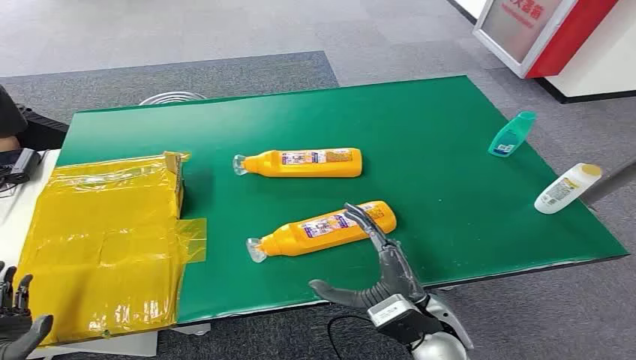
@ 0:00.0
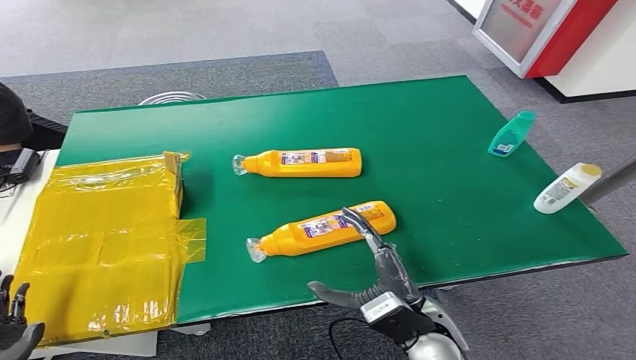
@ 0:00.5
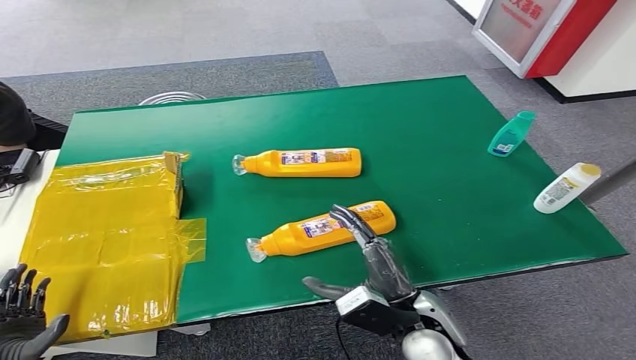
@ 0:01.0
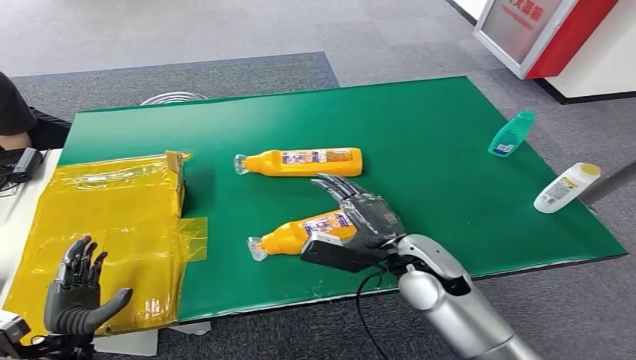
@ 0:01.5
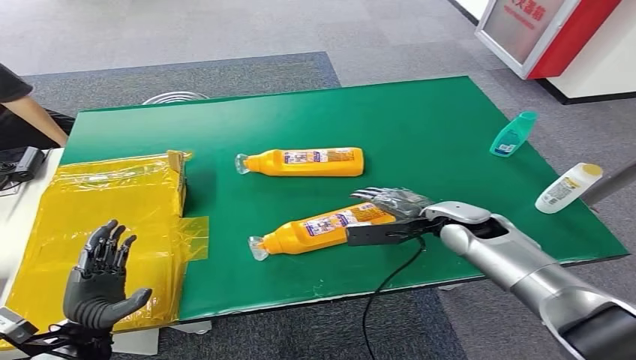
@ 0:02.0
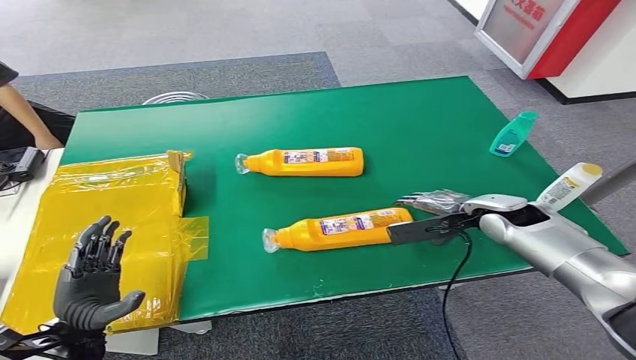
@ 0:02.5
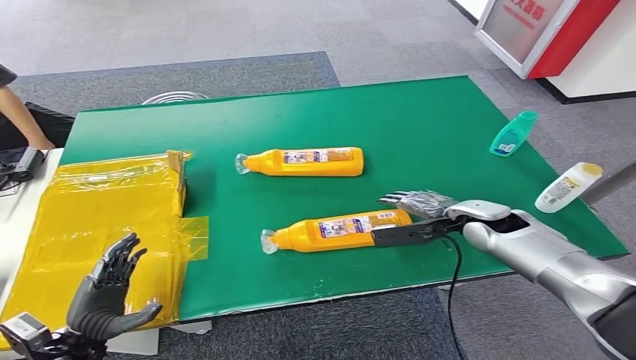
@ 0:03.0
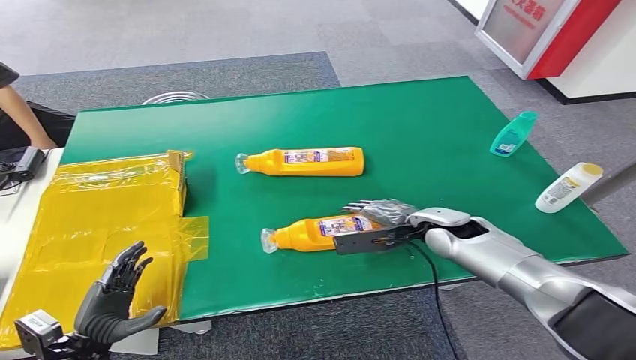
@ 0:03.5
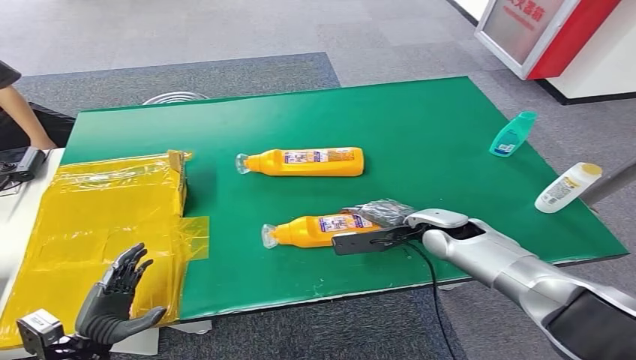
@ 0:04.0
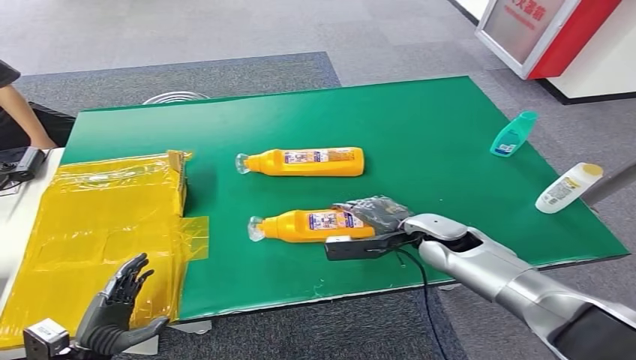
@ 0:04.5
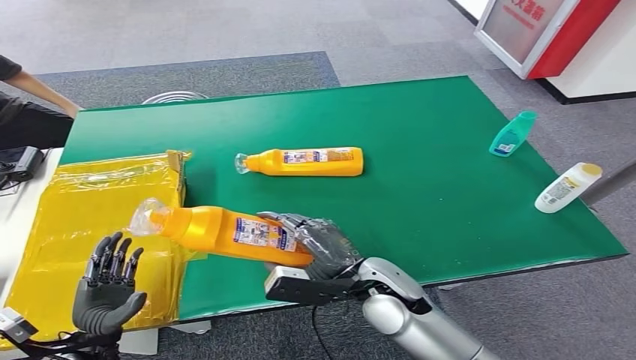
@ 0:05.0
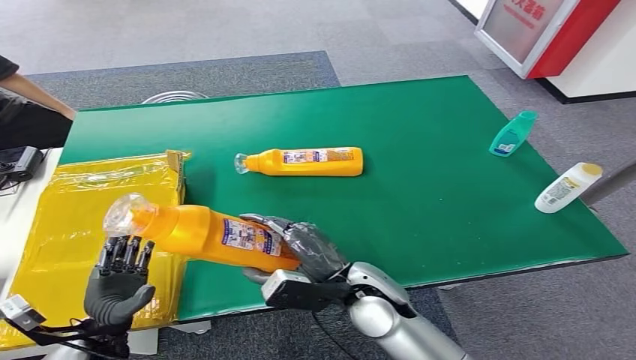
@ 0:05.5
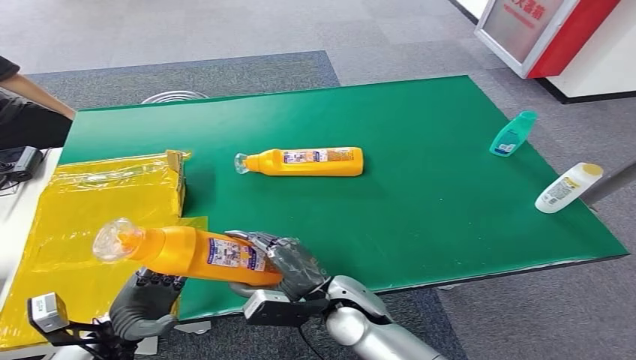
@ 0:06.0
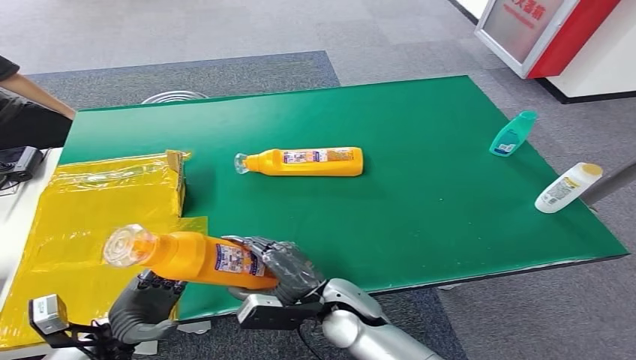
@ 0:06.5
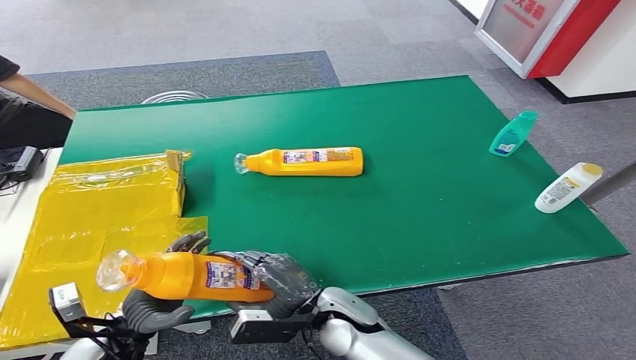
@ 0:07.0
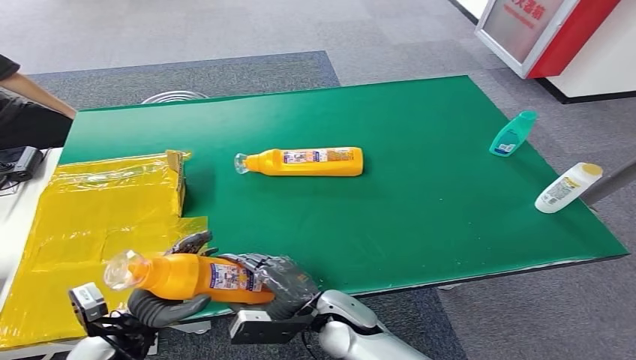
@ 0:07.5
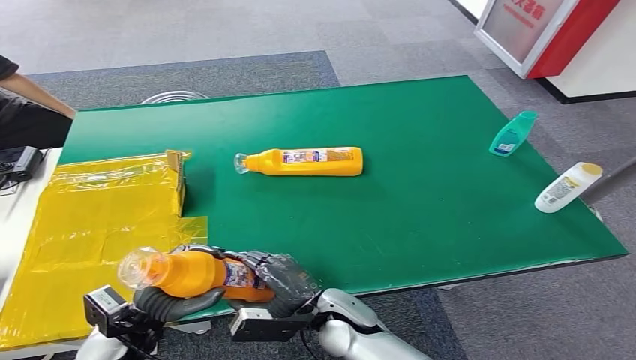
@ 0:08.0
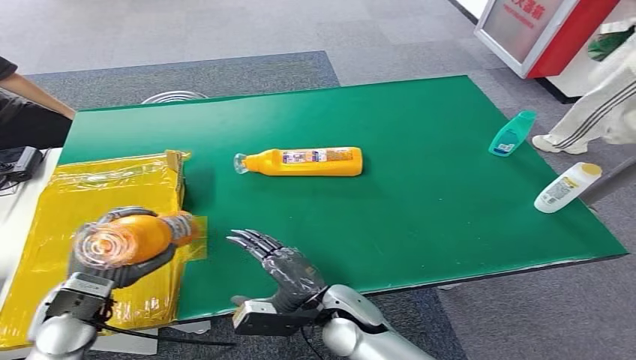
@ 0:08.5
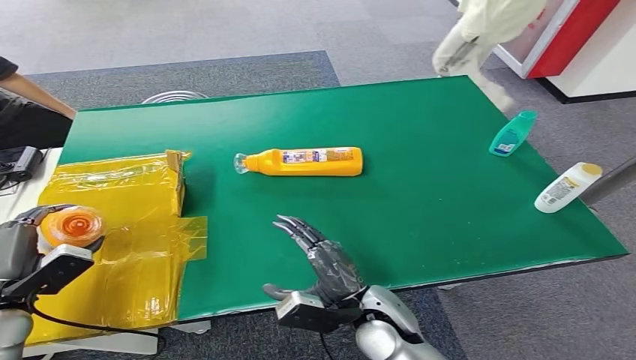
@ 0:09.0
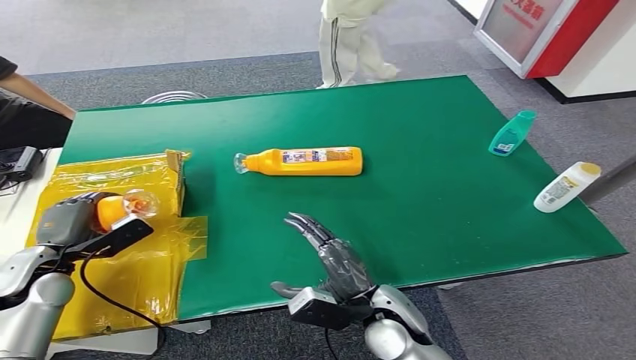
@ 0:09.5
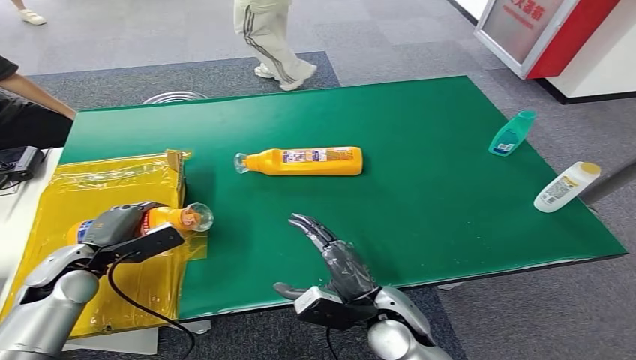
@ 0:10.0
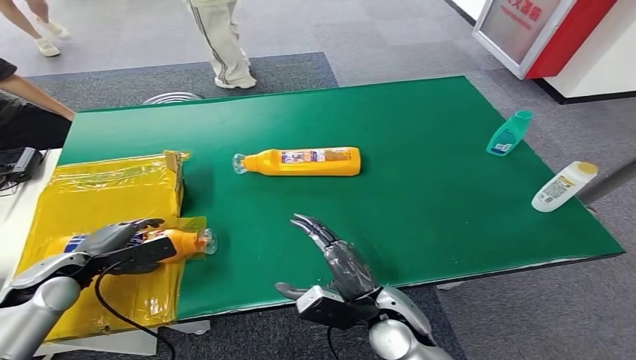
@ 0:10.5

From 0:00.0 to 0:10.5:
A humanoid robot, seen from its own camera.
Step, from 0:00.0 to 0:05.0: Pick up the bottle from the table.
Step, from 0:05.5 to 0:10.5: Turn the bottle to the front side.
From 0:02.0 to 0:04.0: The right hand travels to the right and back again, approximately 5 cm each way.
From 0:06.5 to 0:08.5: The left hand goes some 10 cm upward.

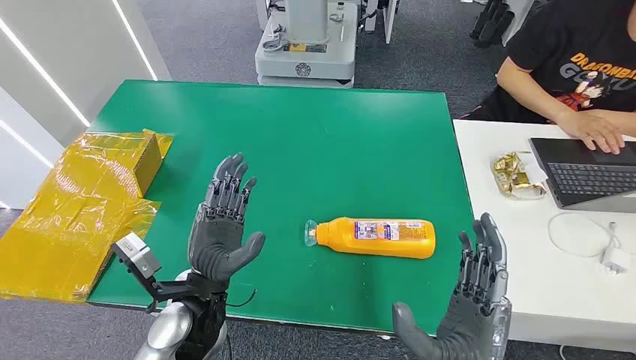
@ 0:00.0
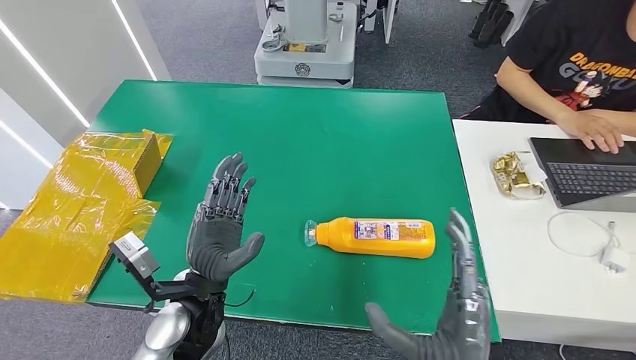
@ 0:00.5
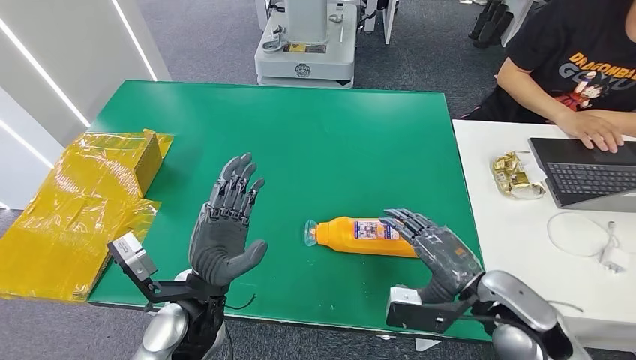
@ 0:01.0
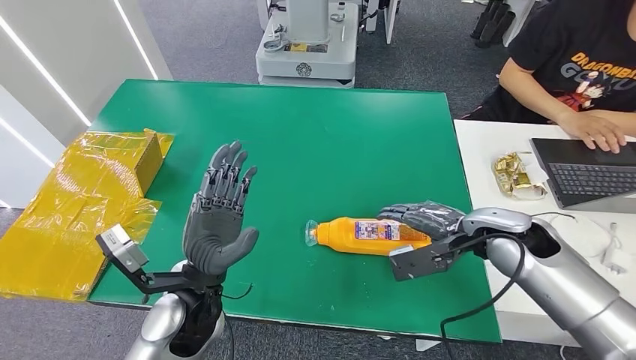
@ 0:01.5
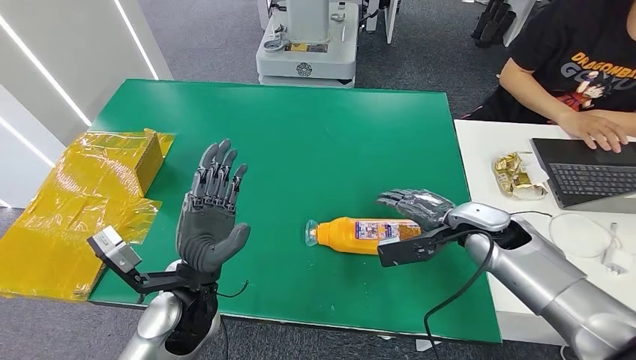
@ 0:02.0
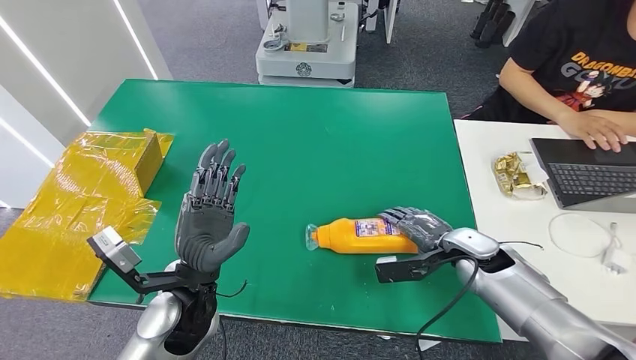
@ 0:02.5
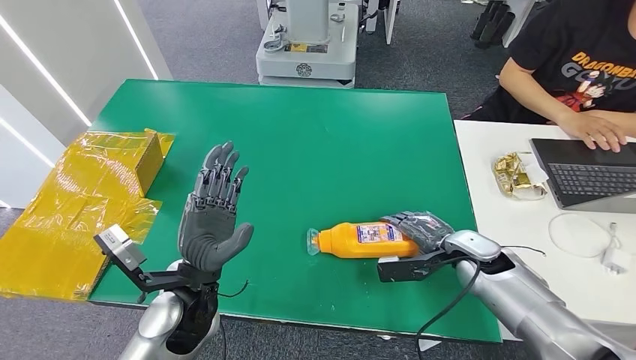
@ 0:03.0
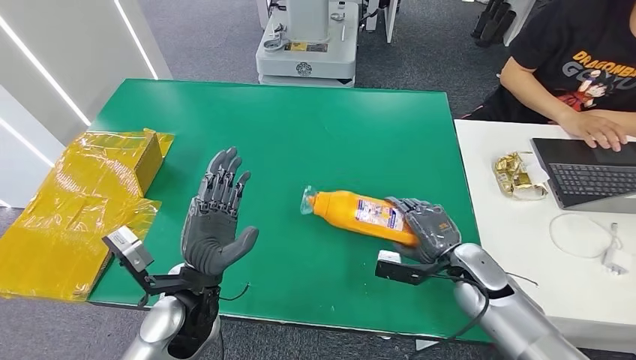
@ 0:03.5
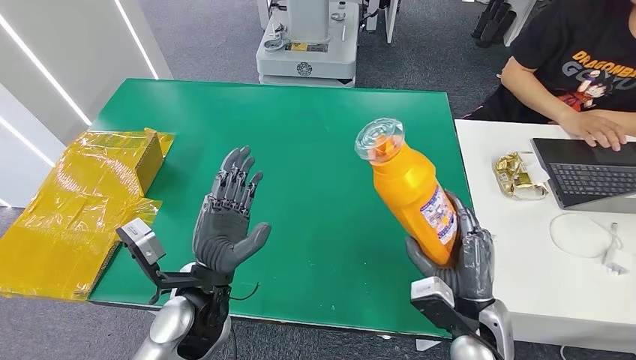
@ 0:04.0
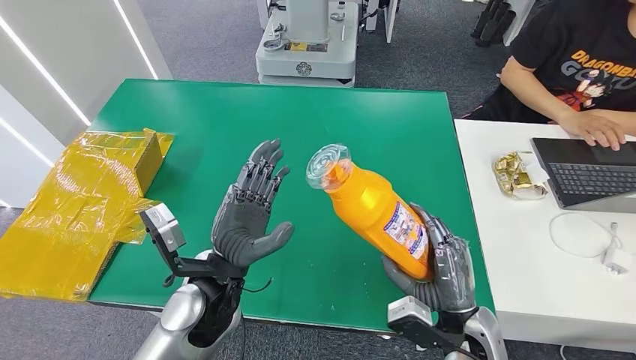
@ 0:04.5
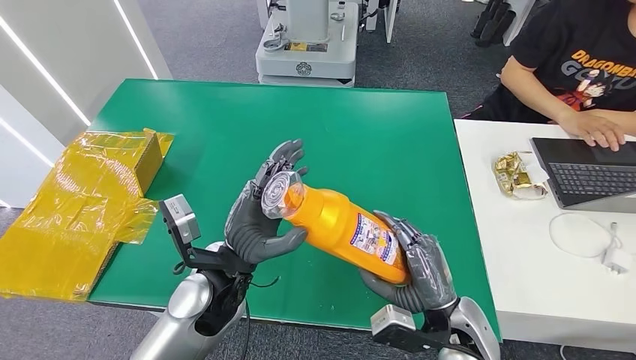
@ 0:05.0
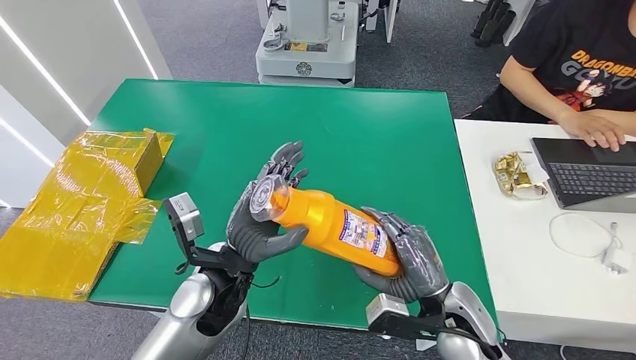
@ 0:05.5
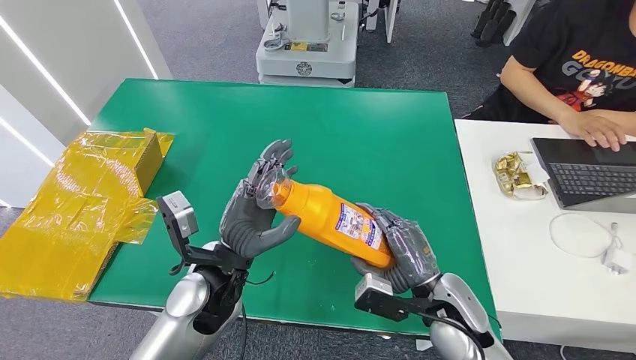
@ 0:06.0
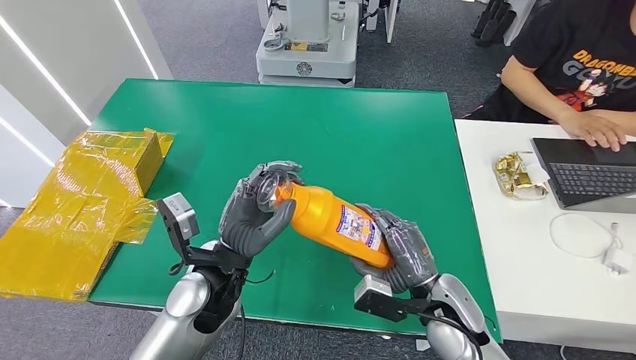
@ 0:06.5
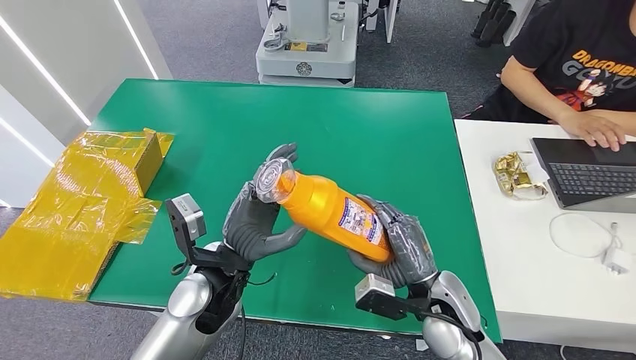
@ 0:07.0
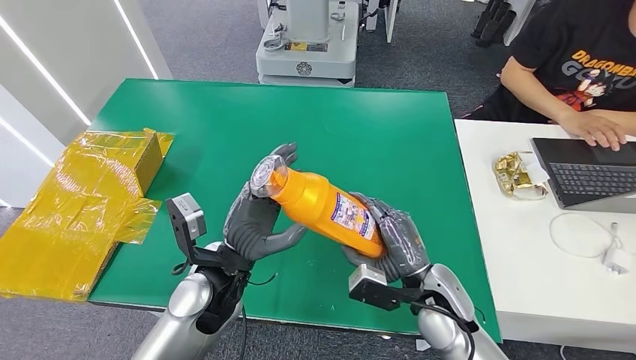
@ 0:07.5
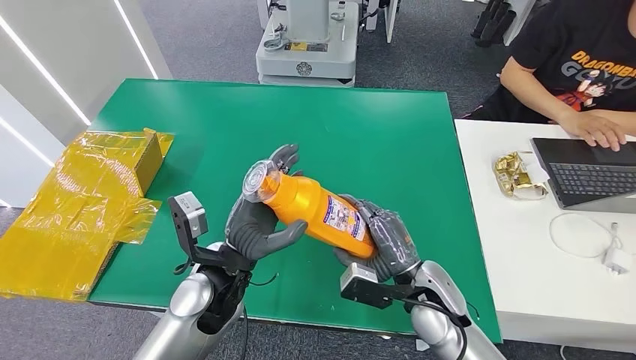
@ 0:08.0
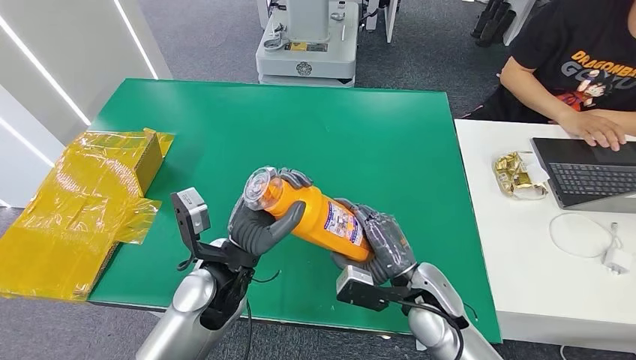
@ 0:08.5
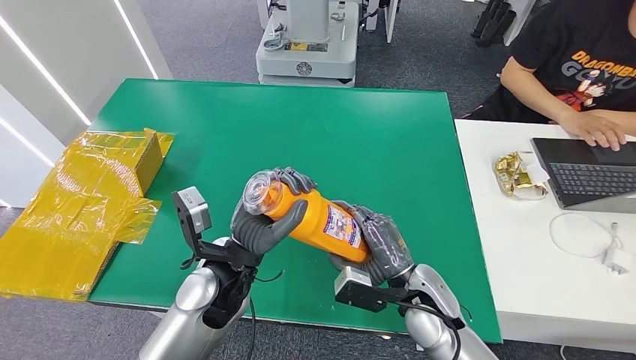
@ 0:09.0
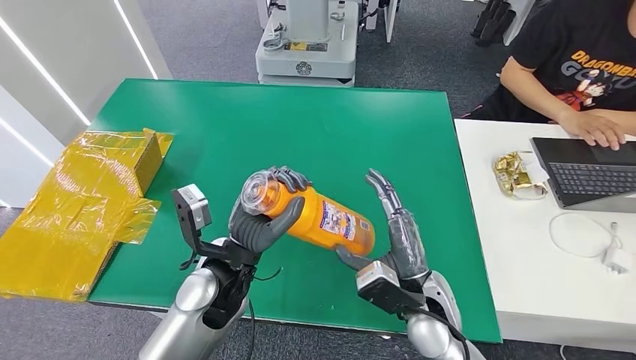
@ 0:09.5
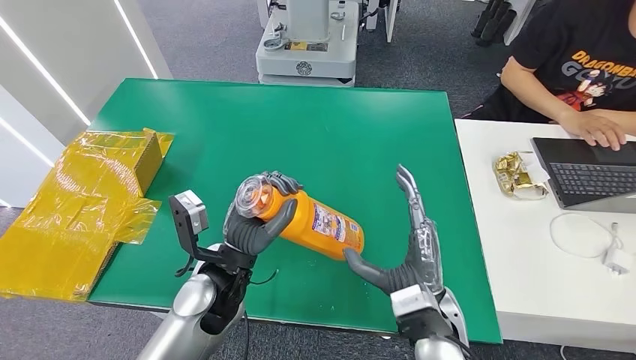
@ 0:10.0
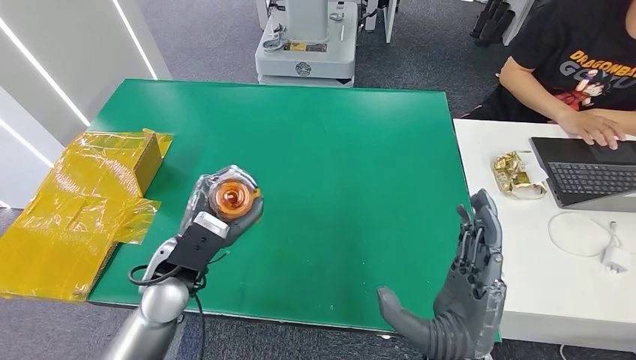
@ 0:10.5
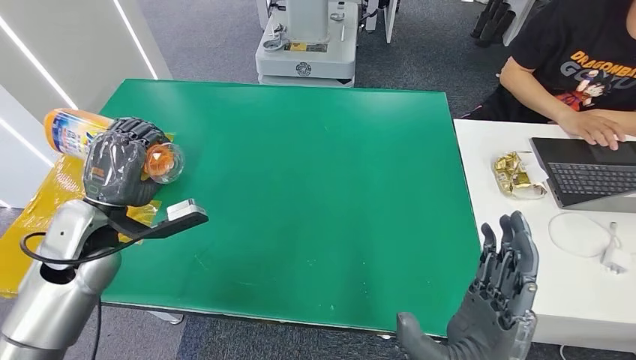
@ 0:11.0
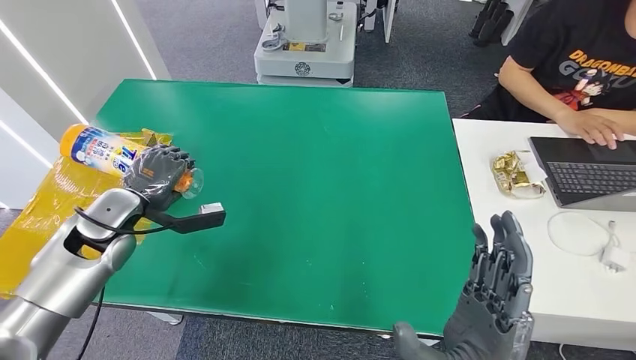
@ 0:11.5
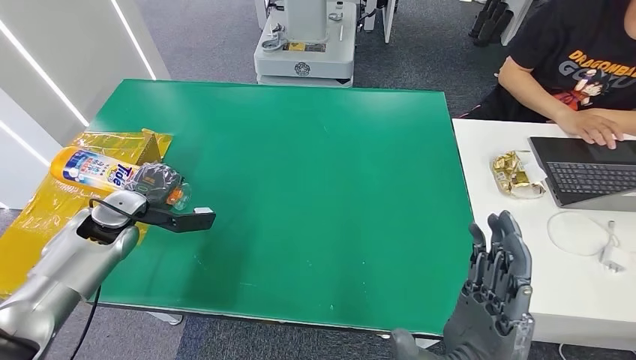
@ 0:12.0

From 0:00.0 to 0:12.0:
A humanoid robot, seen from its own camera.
Step, from 0:00.0 to 0:04.0: Pick up the bottle from the table.
From 0:02.0 to 0:04.0: The right hand is displaced backward and downward by some 15 cm.
From 0:04.0 to 0:06.0: The right hand changes place by roughly 5 cm.
From 0:06.0 to 0:08.0: The hands make only small movements.
From 0:08.0 to 0:10.0: The right hand heads backward, covering about 5 cm.
